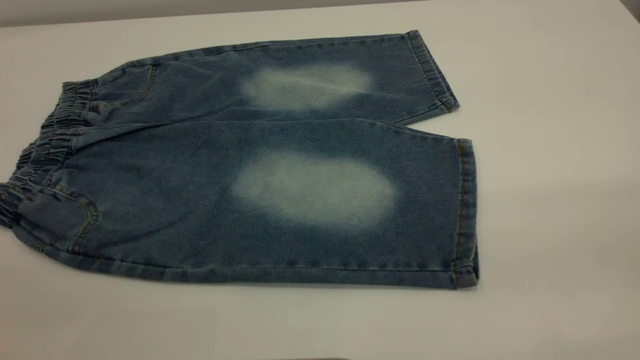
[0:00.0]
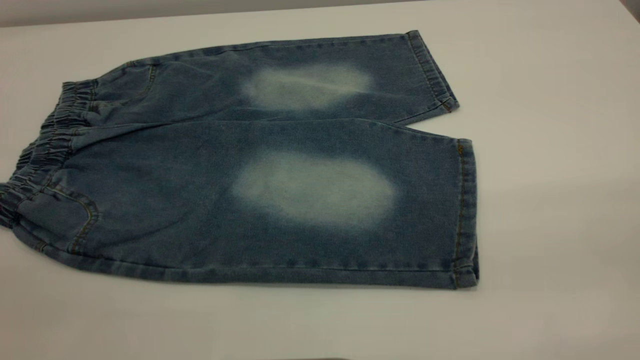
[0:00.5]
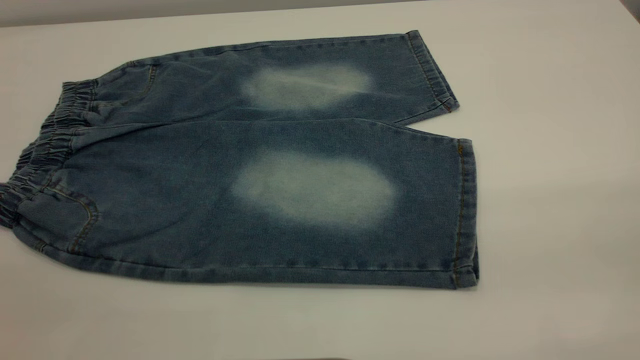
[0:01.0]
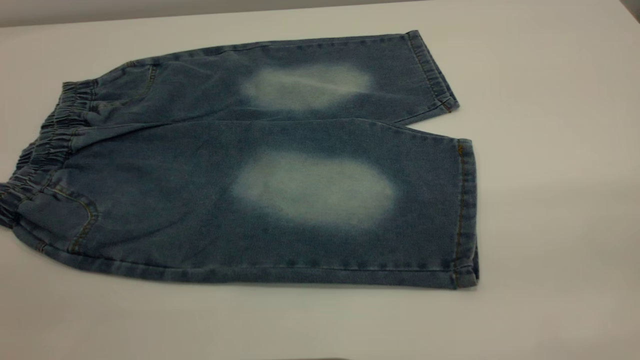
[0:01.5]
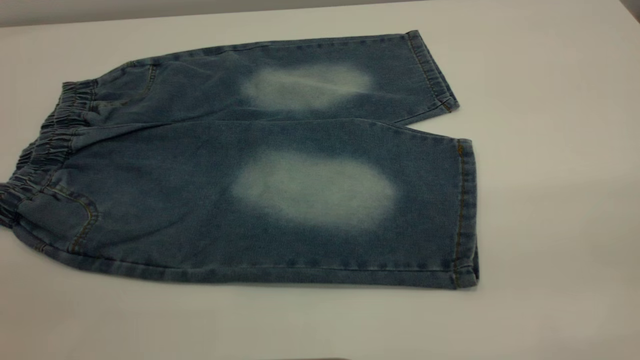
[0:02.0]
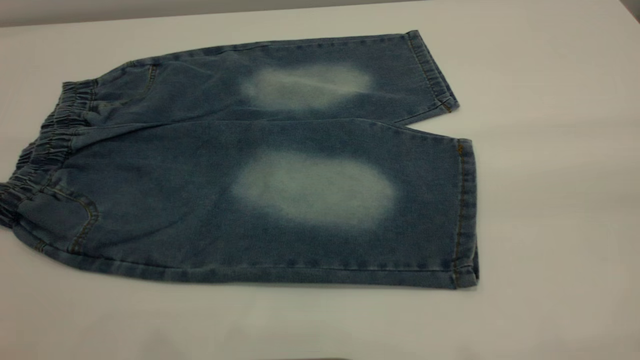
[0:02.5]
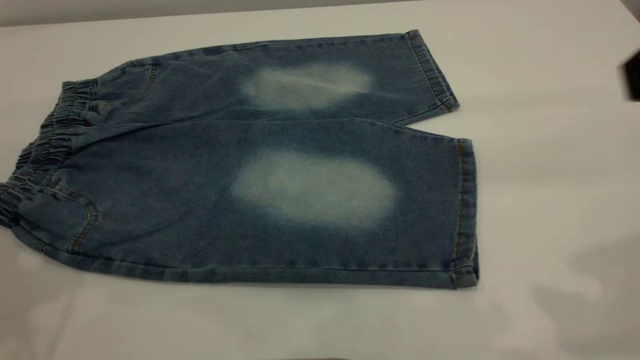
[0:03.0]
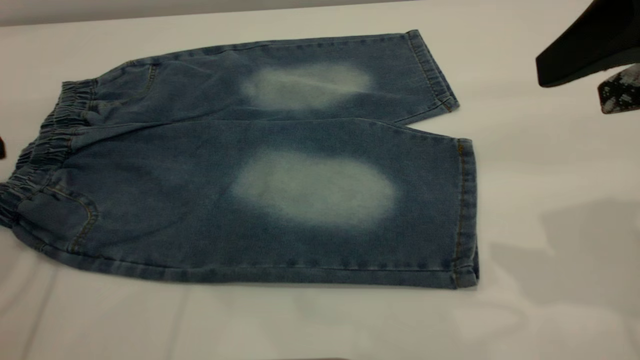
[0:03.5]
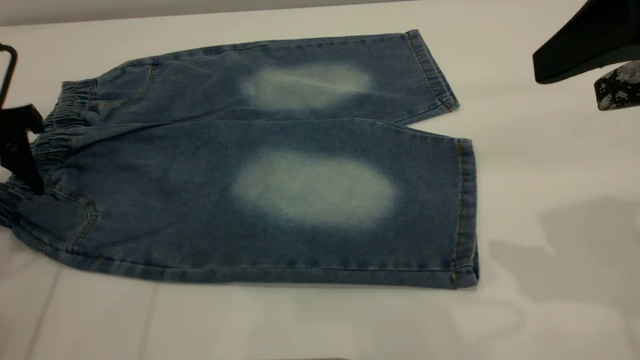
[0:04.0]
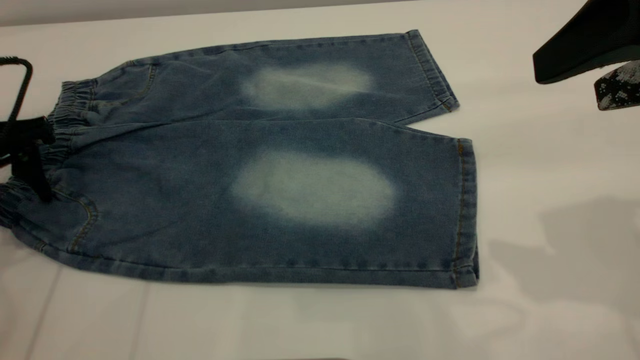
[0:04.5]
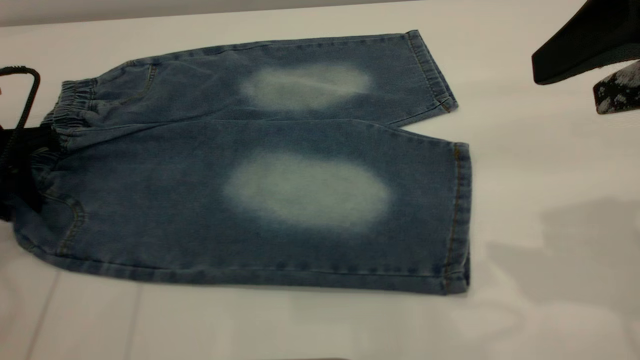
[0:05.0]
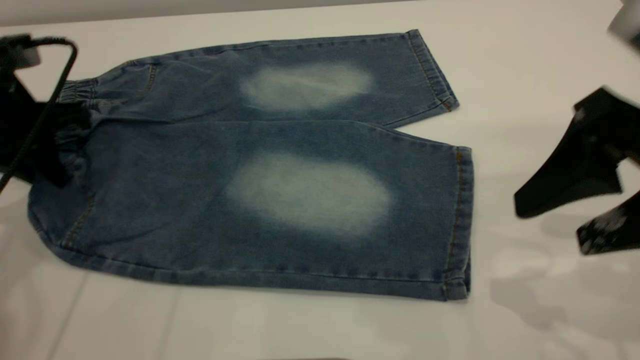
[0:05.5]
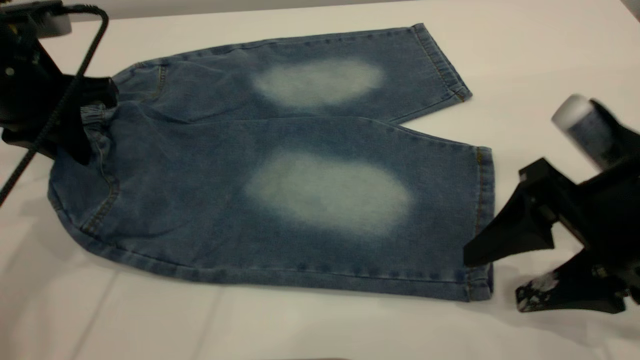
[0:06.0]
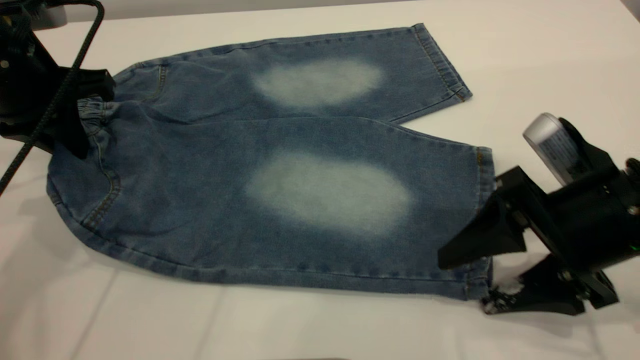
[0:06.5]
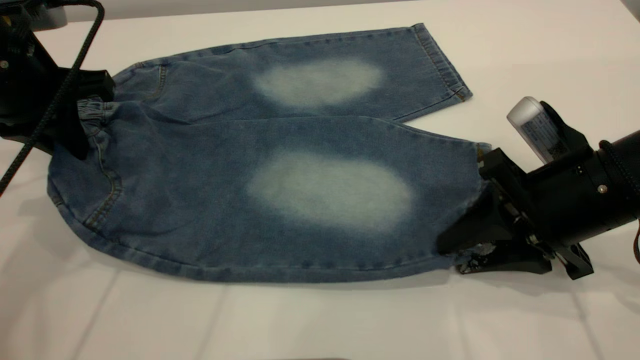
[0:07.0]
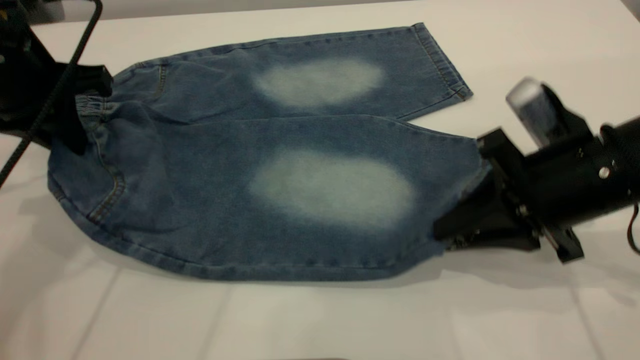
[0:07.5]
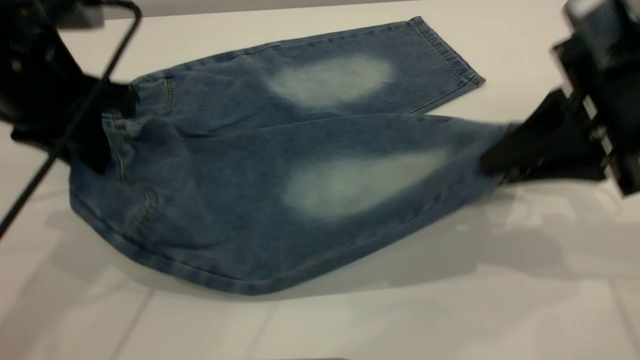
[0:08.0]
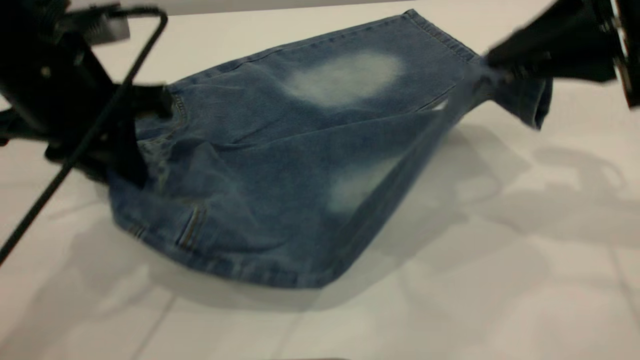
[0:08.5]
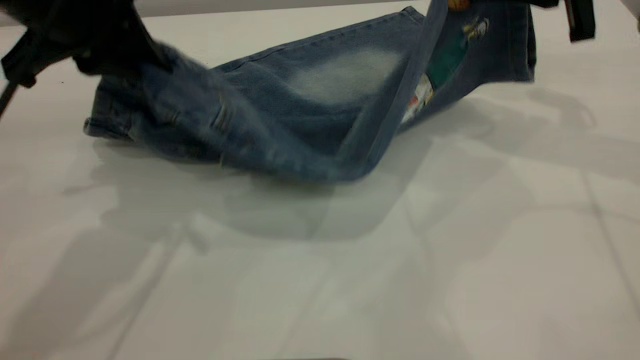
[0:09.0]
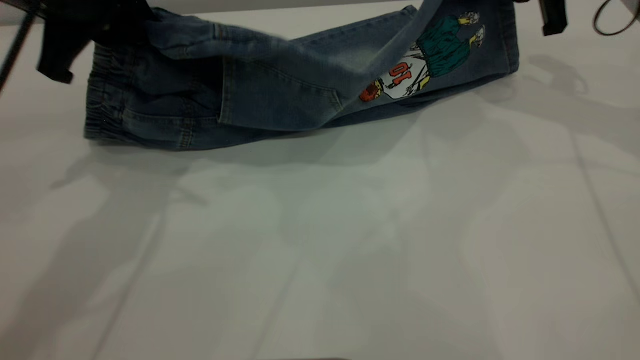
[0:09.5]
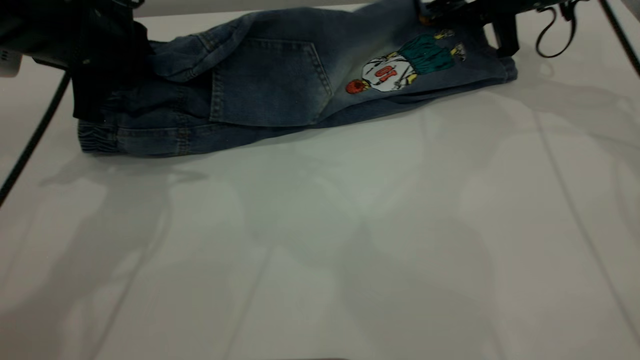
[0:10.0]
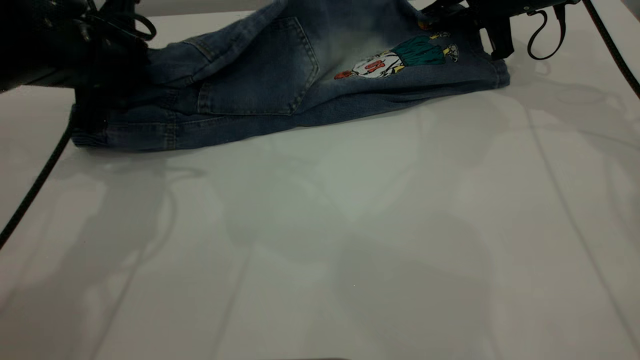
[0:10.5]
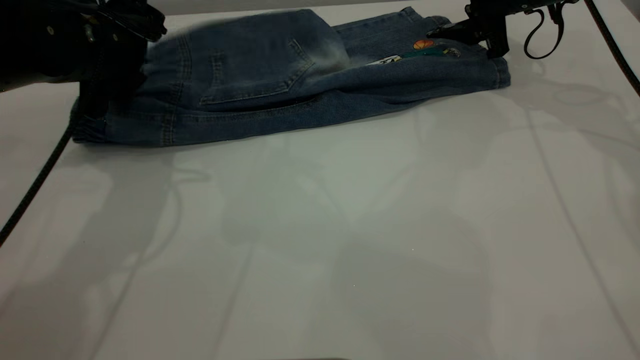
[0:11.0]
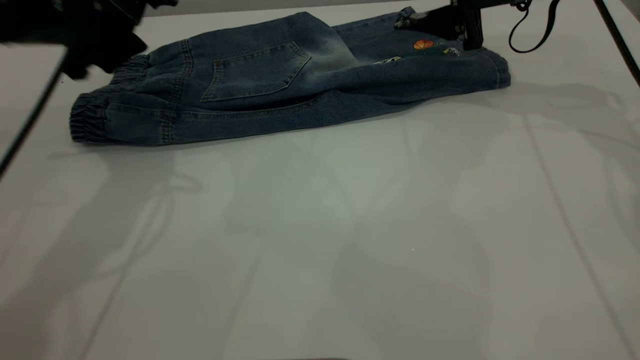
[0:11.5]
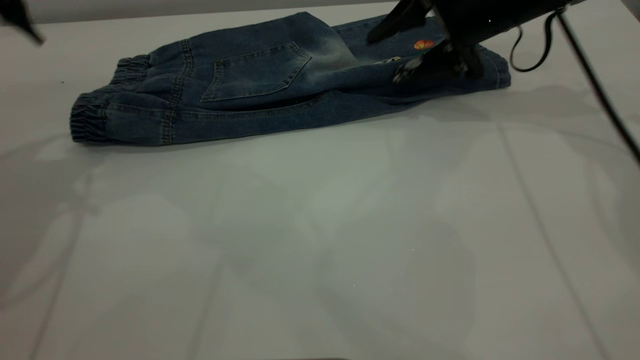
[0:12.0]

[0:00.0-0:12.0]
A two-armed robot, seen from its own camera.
Step, 0:00.0 to 0:11.5: Fold the bottom of the pants upward.
0:00.0 to 0:02.0: The two grippers keep their place.
0:02.0 to 0:04.0: The right gripper moves forward, approximately 20 cm, while the left gripper heads forward and downward, covering about 35 cm.
0:04.0 to 0:06.0: The right gripper is displaced downward by approximately 15 cm. The left gripper heads to the right, covering approximately 5 cm, and closes.
0:06.0 to 0:08.0: The right gripper shifts about 10 cm upward and forward, and closes up. Meanwhile the left gripper moves some 5 cm.
0:08.0 to 0:10.0: The right gripper goes approximately 25 cm forward. Meanwhile the left gripper shifts approximately 5 cm forward.
0:10.0 to 0:12.0: The left gripper shifts approximately 10 cm to the left and upward, and opens up. The right gripper shifts some 5 cm to the left, and opens.

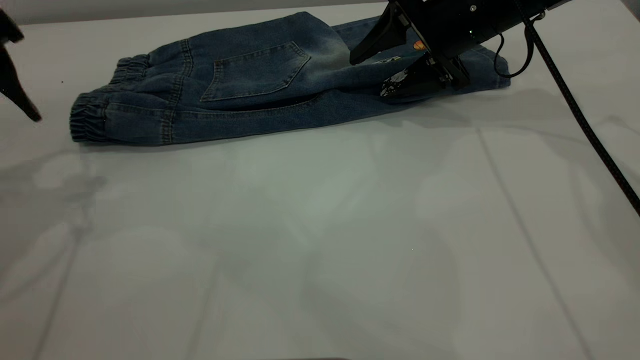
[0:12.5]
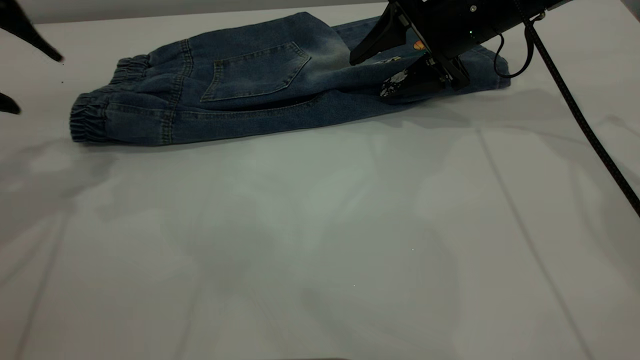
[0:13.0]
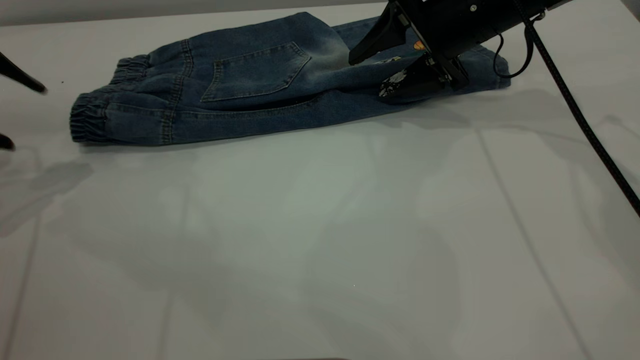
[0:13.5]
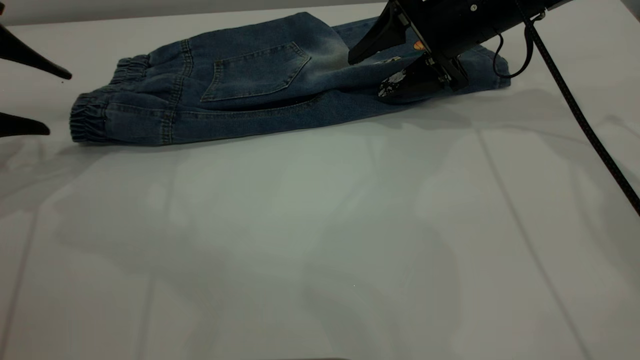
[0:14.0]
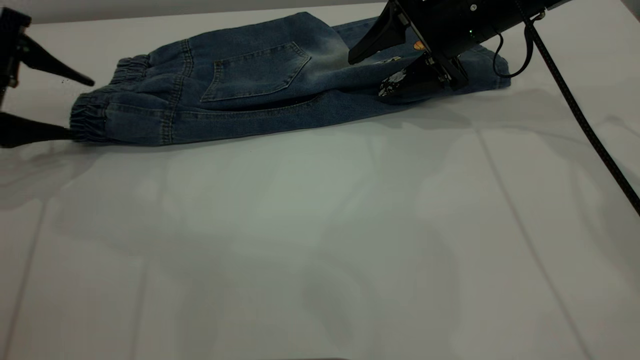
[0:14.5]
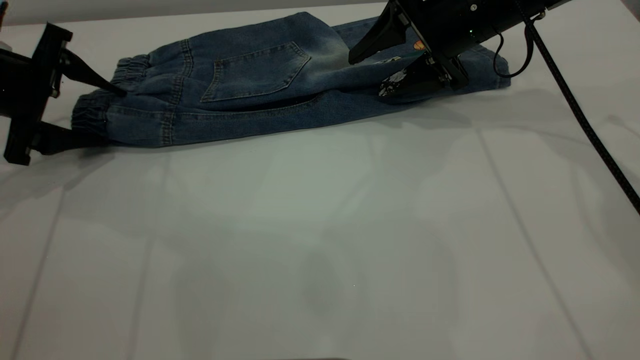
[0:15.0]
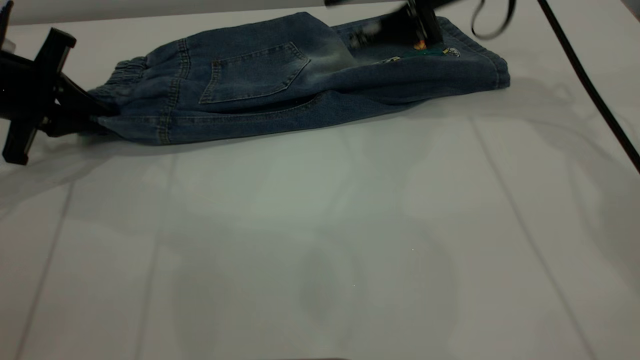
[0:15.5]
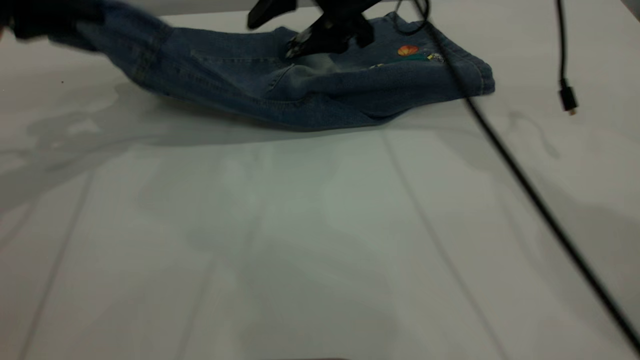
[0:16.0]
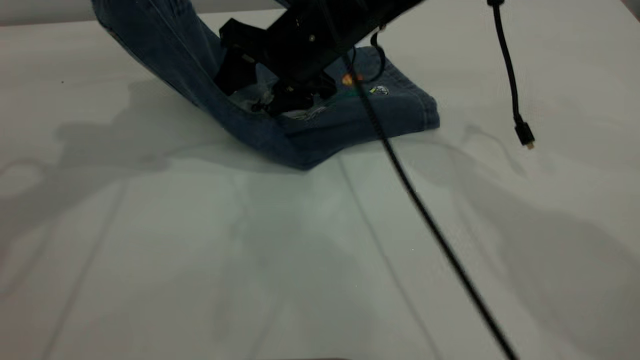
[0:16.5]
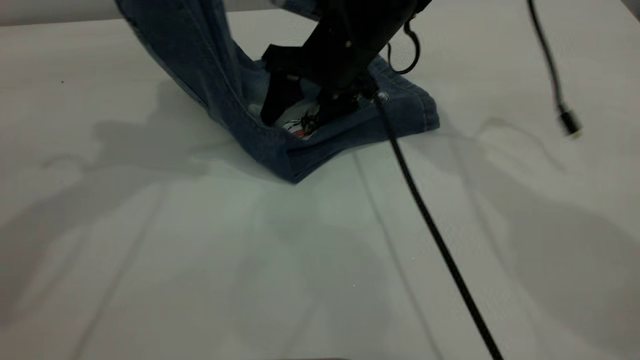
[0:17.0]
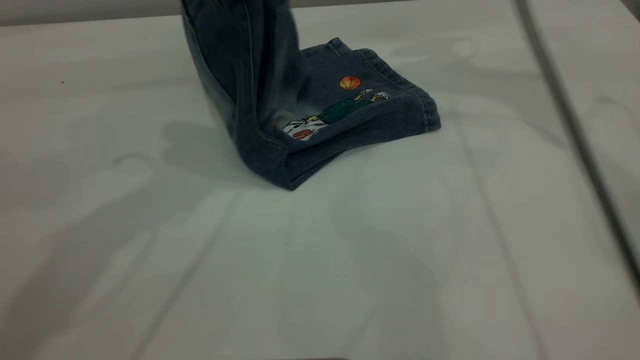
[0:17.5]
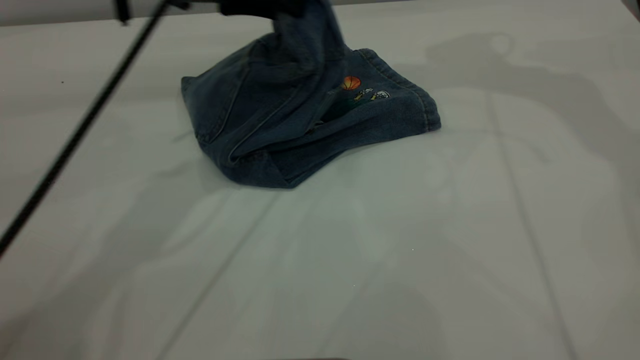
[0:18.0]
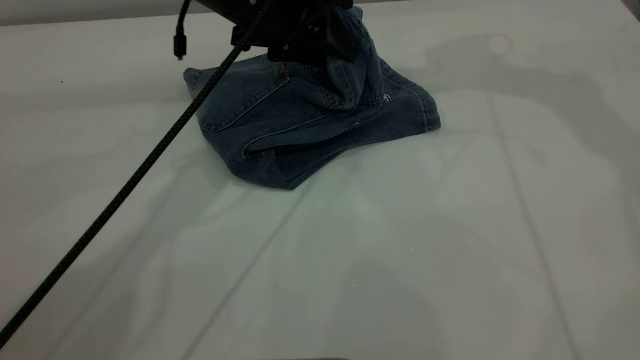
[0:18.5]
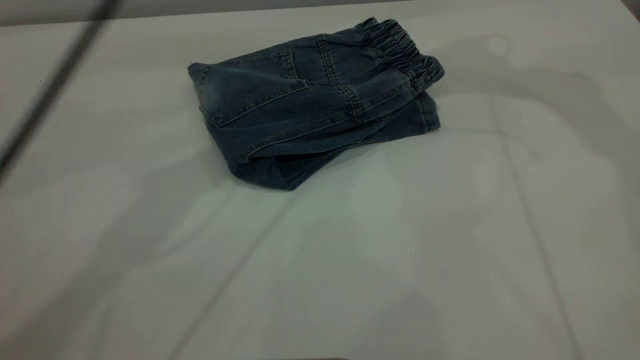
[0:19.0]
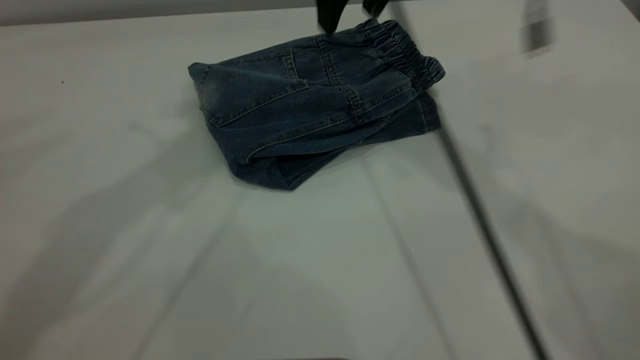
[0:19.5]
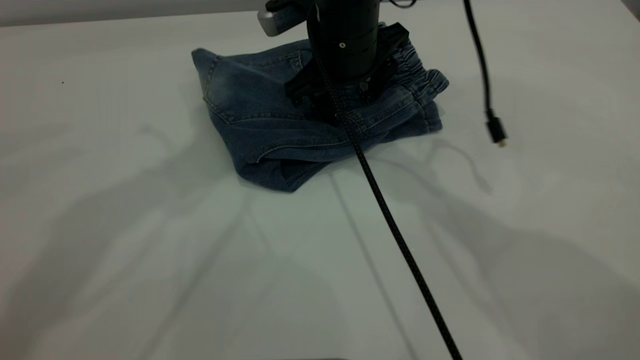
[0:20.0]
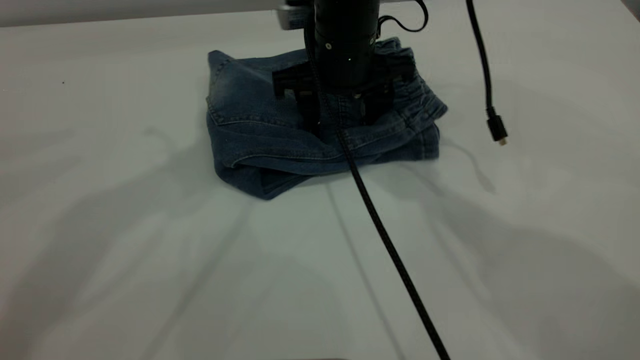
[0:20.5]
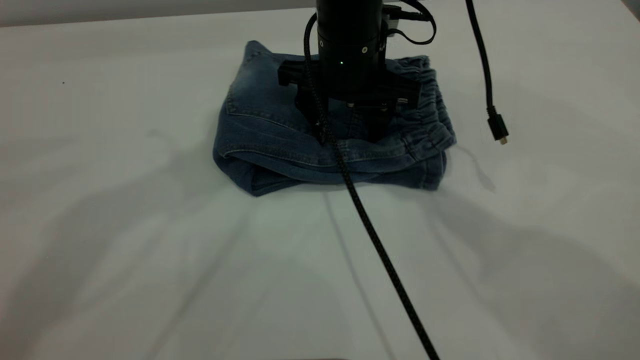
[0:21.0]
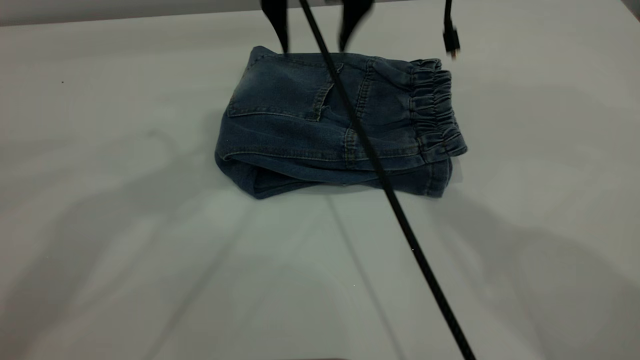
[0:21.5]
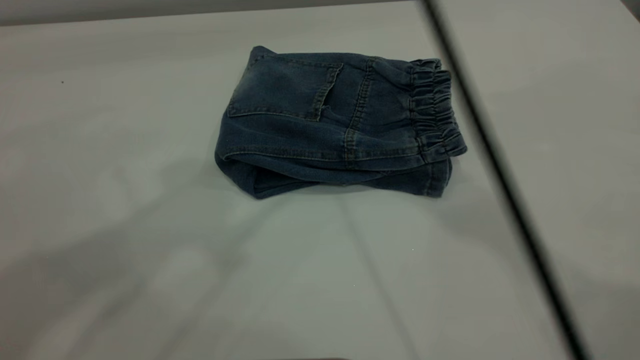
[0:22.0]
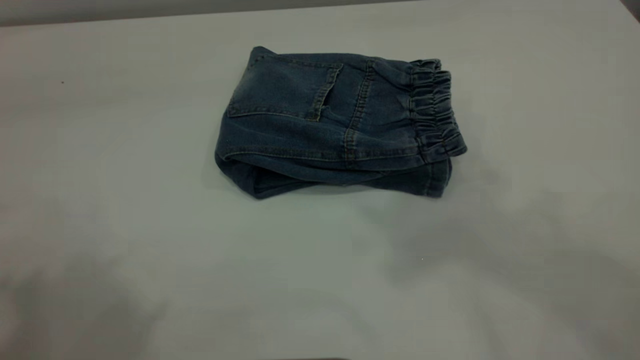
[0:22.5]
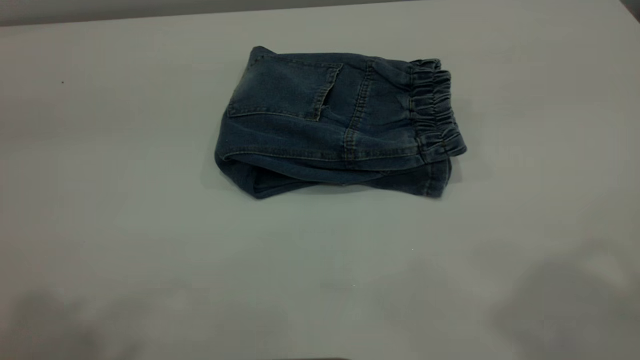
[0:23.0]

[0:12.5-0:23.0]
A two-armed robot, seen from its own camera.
Step, 0:12.5 to 0:19.0: Fold the pants from left to right.
0:12.5 to 0:14.5: The left gripper shifts about 10 cm downward.
0:14.5 to 0:16.5: The right gripper moves to the left, some 15 cm. Meanwhile the left gripper shifts some 20 cm upward and to the right, and closes.
0:16.5 to 0:19.0: The right gripper heads to the right and upward, covering about 25 cm. The left gripper travels to the right by about 15 cm, and opens its fingers.
0:19.0 to 0:21.0: The left gripper is displaced upward by approximately 10 cm; the right gripper moves downward and to the left, some 25 cm.
0:21.0 to 0:23.0: The right gripper travels upward, backward and to the right by some 40 cm, while the left gripper shifts roughly 25 cm backward and to the left.
